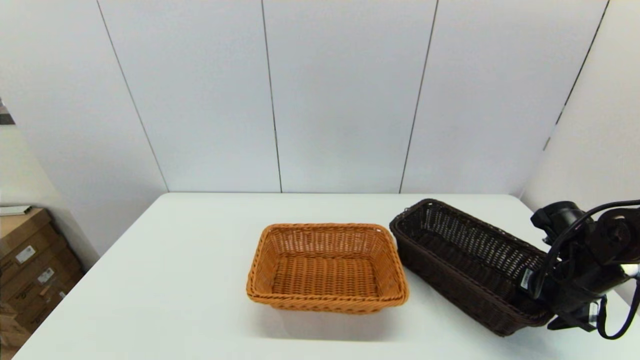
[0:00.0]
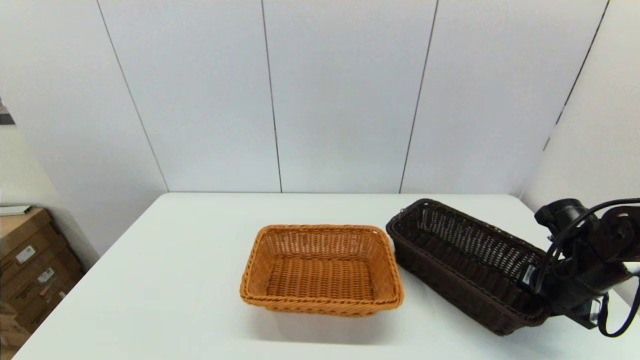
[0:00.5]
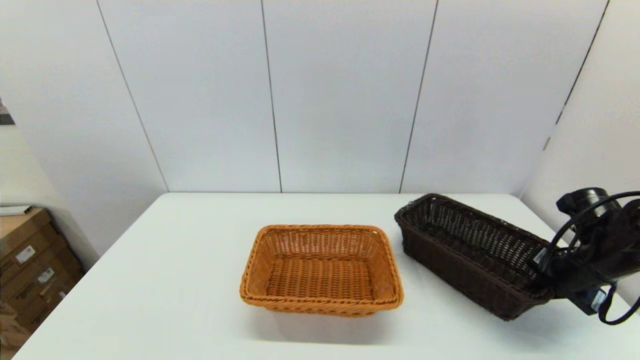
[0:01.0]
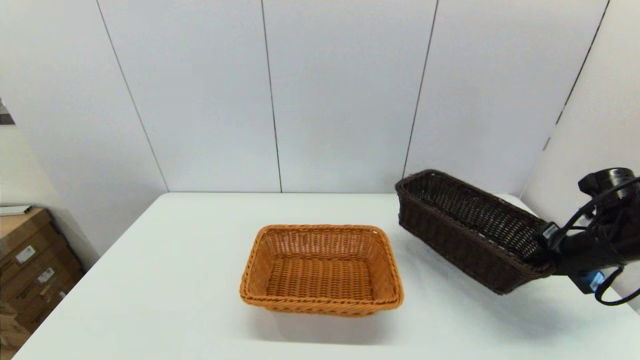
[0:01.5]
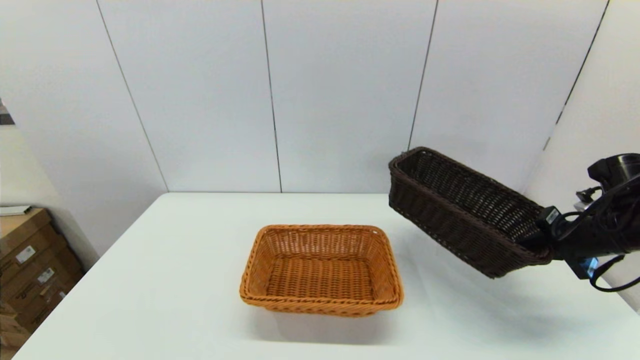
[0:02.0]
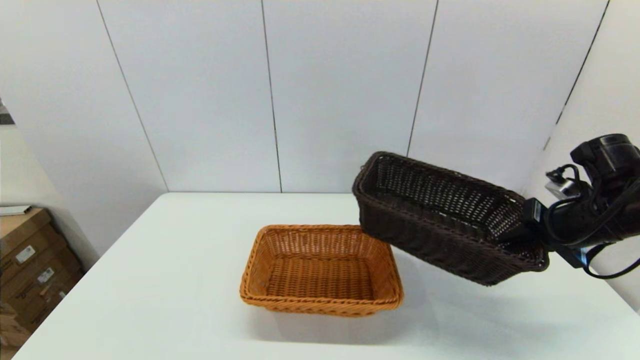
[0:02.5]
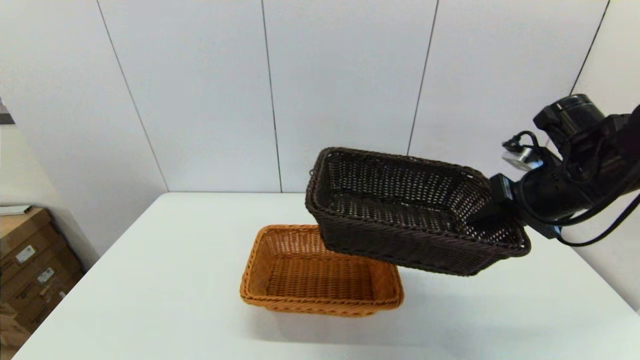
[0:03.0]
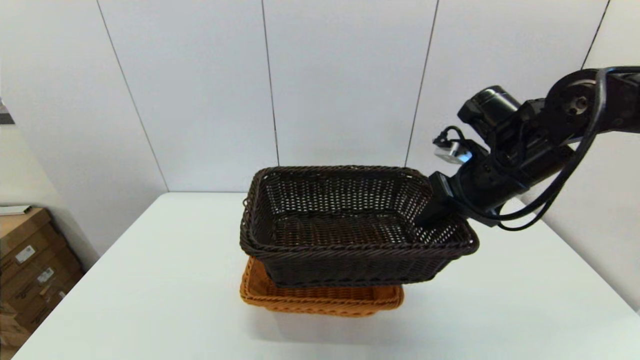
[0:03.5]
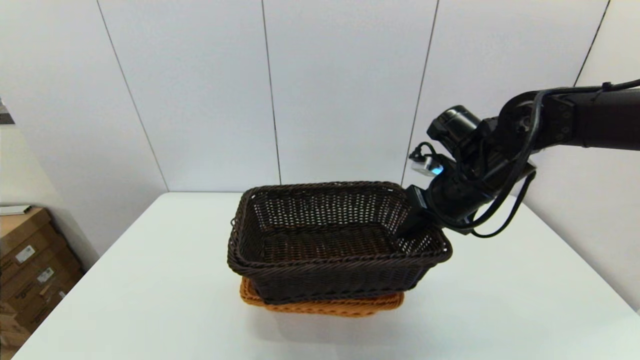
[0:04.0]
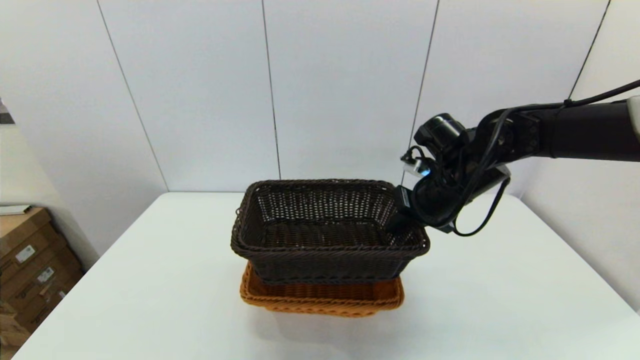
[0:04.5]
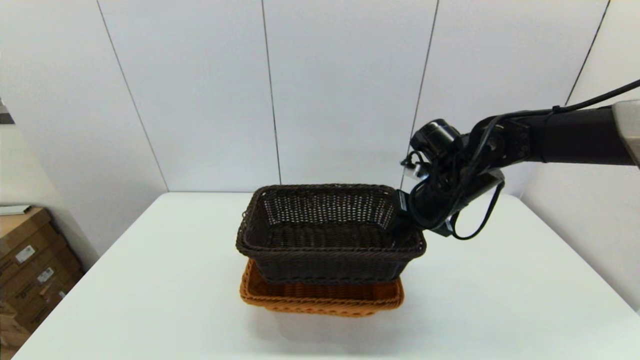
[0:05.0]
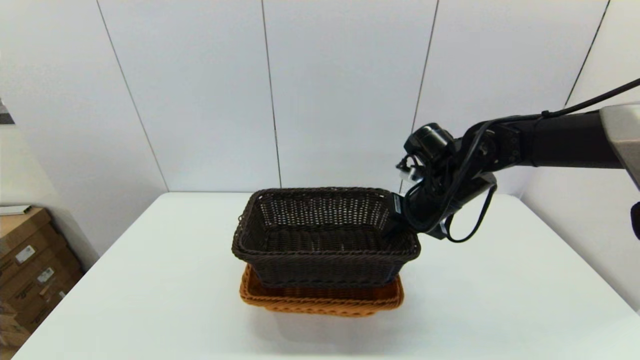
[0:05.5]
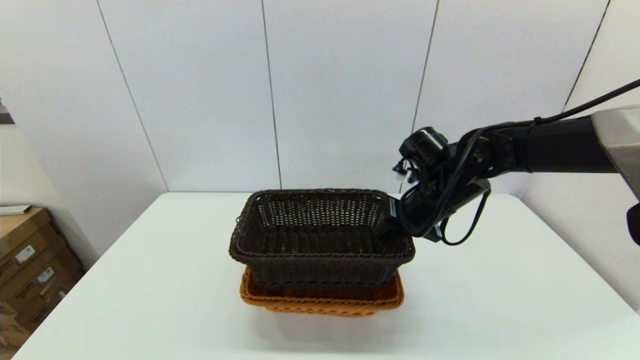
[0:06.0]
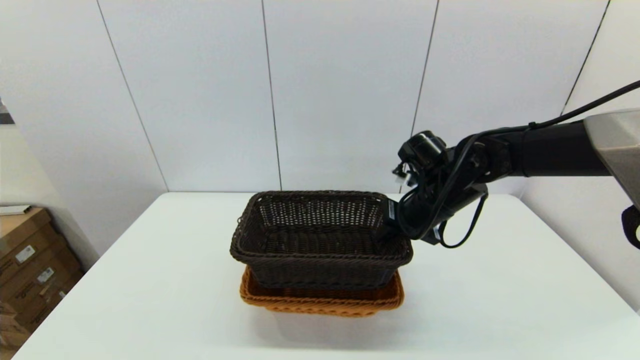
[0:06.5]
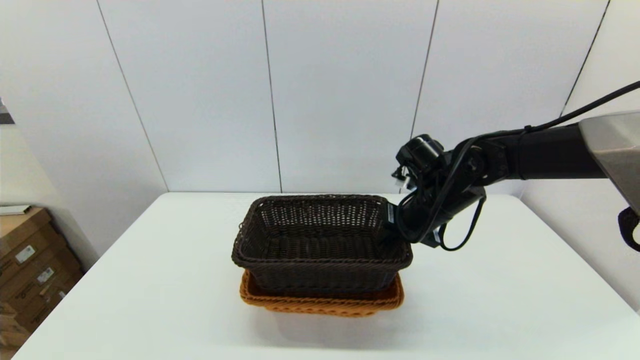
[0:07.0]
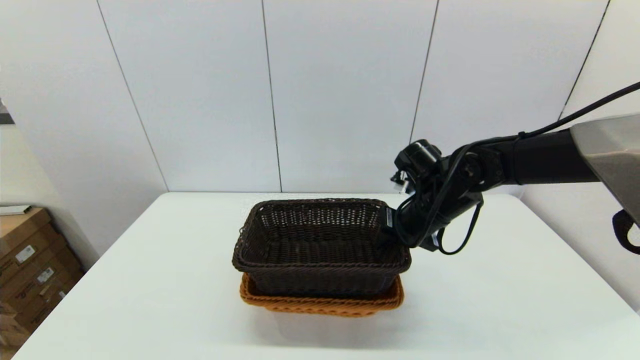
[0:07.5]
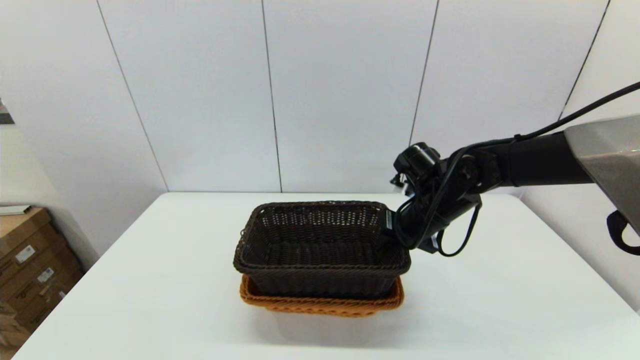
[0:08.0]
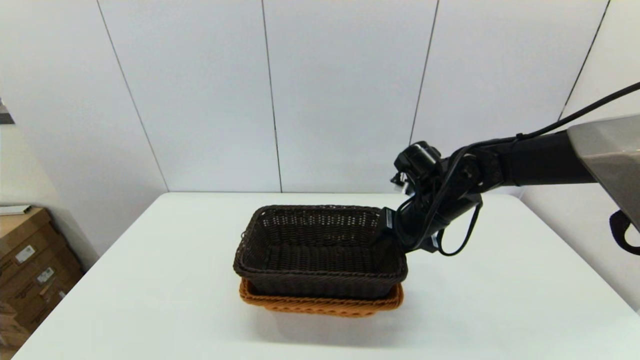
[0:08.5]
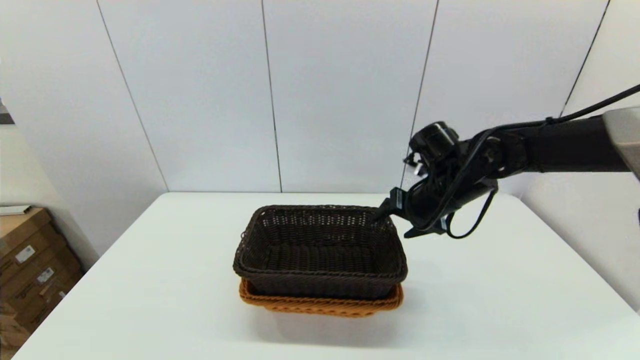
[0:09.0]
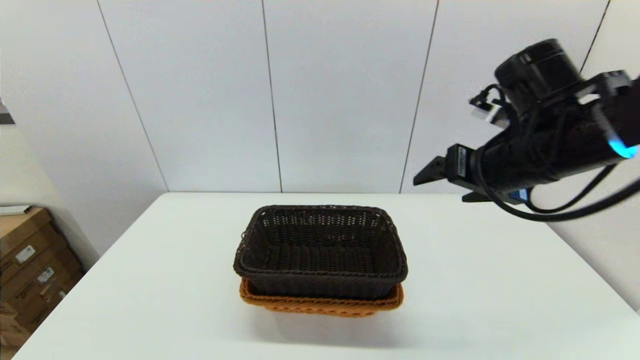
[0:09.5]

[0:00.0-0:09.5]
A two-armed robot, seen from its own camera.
Task of the whole recording: stack a basket on top of another basket.
0:00.0 to 0:02.0: The right gripper goes some 5 cm upward, and closes up.
0:02.0 to 0:04.0: The right gripper goes roughly 20 cm to the left.
0:04.0 to 0:05.5: The grippers stay close to where they were, moving slightly.
0:05.5 to 0:07.5: The grippers stay close to where they were, moving slightly.
0:07.5 to 0:09.5: The right gripper moves upward and backward, some 15 cm, and opens its fingers.

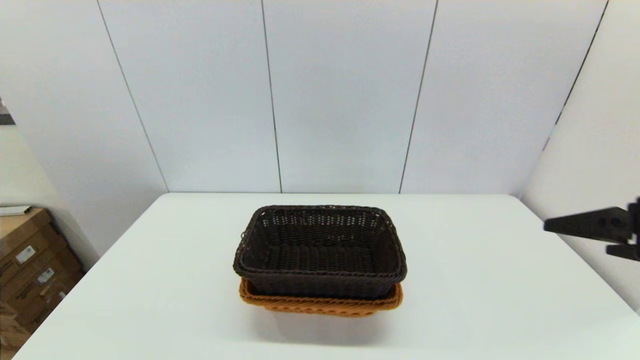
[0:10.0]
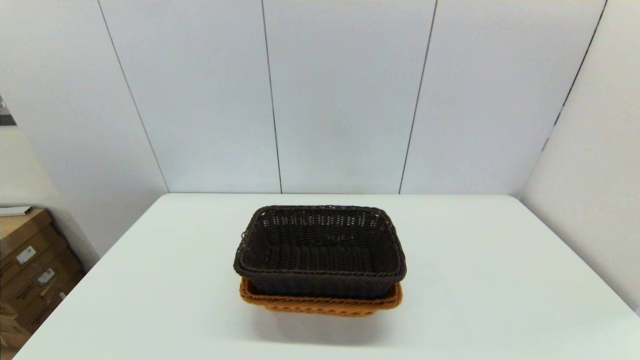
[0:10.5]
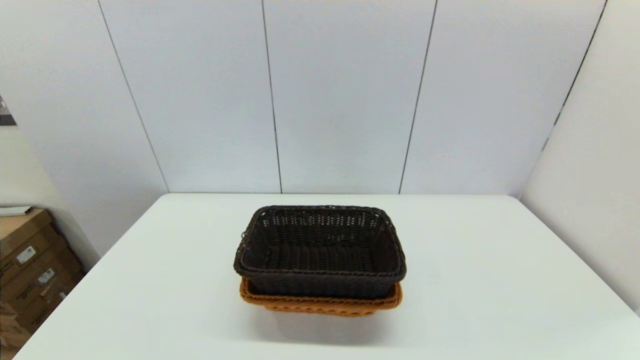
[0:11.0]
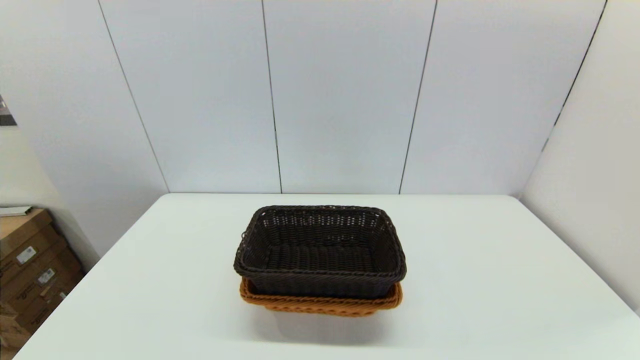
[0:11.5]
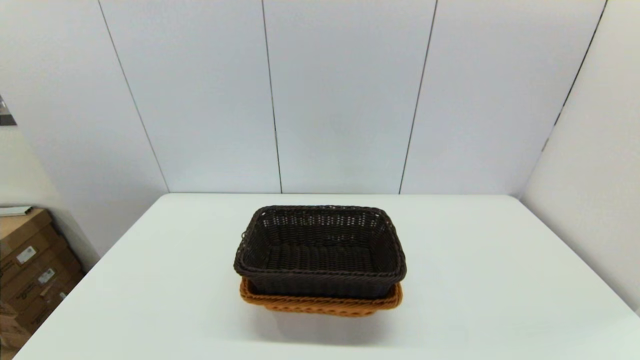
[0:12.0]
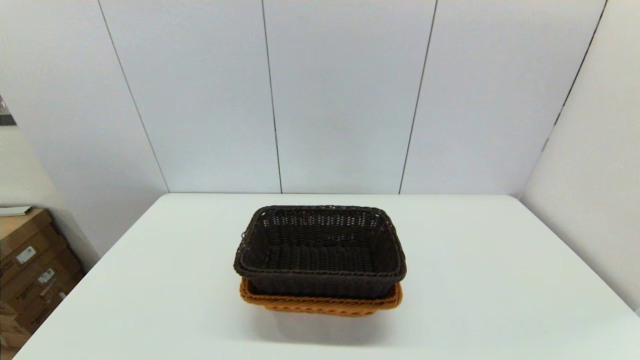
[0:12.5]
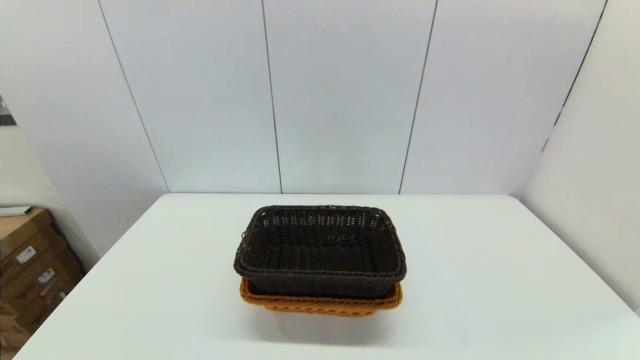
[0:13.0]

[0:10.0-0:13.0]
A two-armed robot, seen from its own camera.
Task of the whole recording: stack a basket on top of another basket.
0:10.0 to 0:11.5: The right gripper heads backward and downward, covering roughly 25 cm.

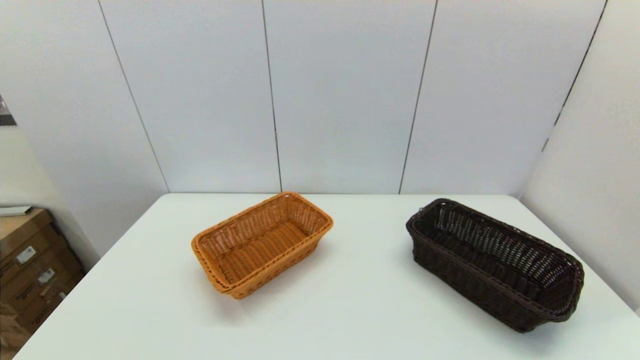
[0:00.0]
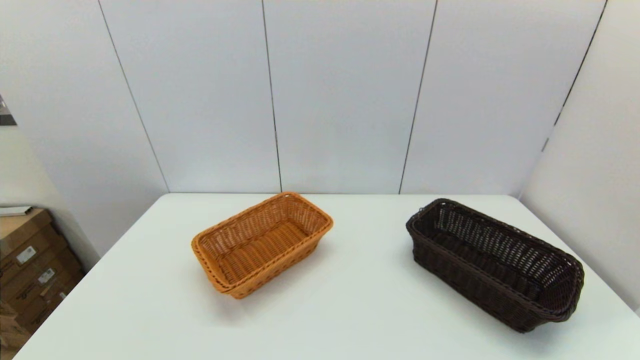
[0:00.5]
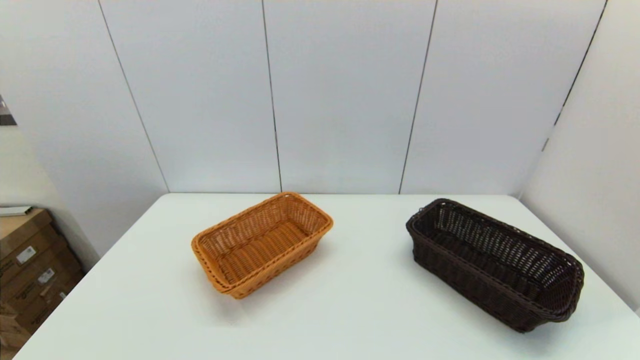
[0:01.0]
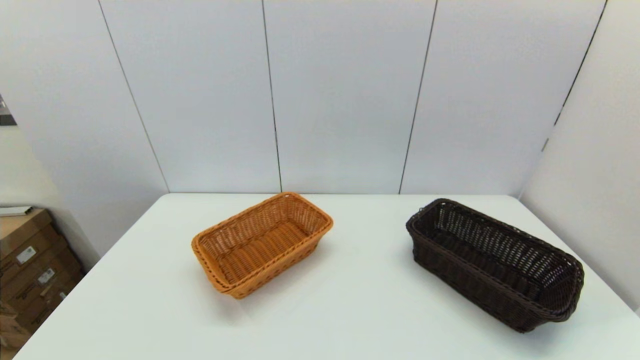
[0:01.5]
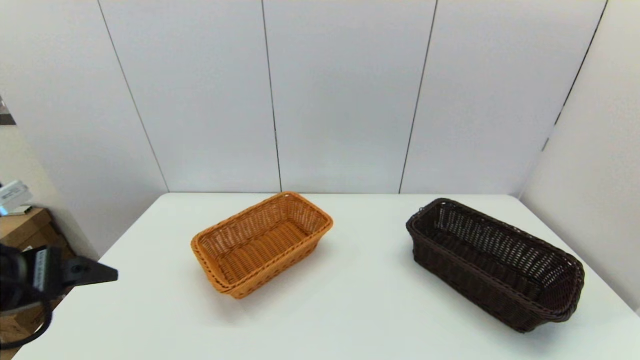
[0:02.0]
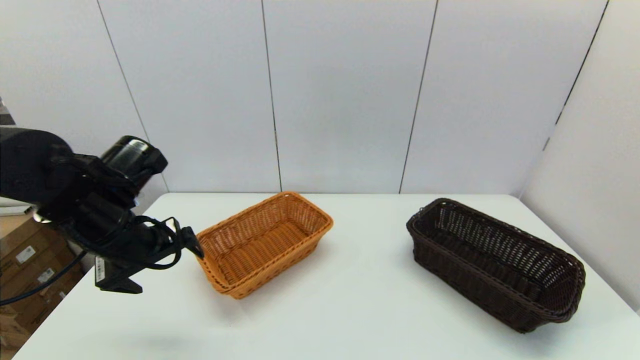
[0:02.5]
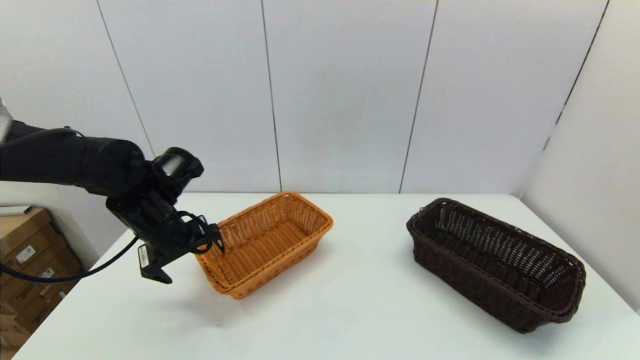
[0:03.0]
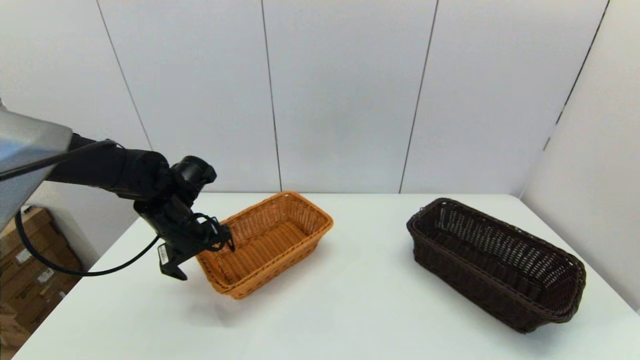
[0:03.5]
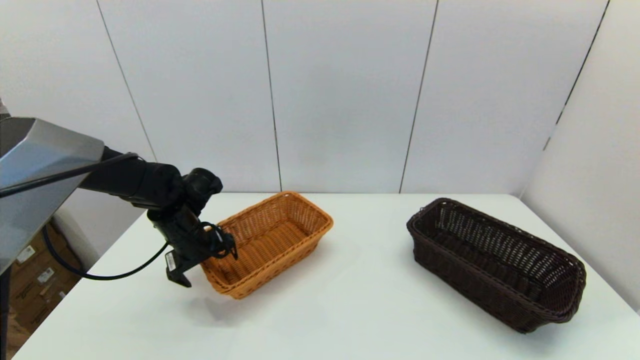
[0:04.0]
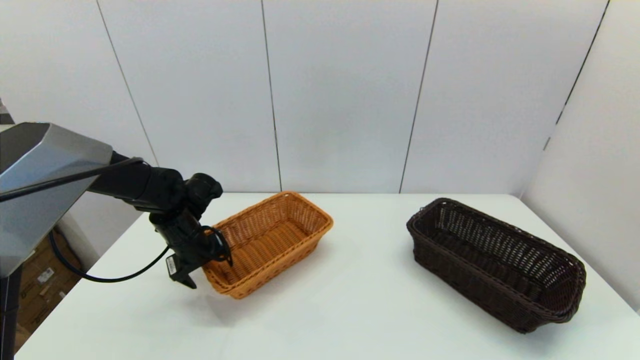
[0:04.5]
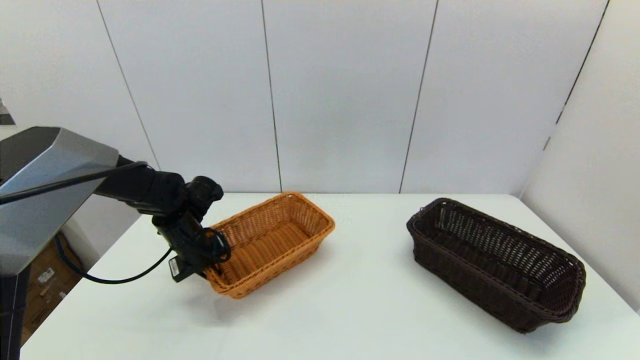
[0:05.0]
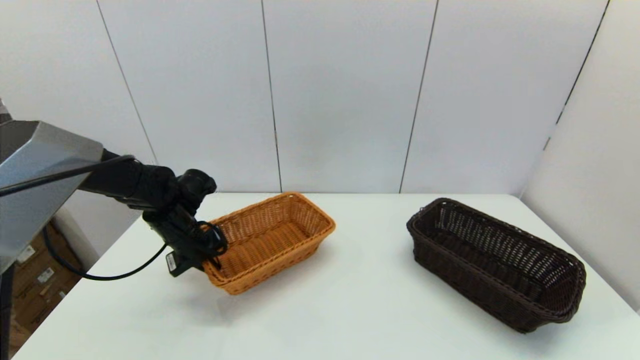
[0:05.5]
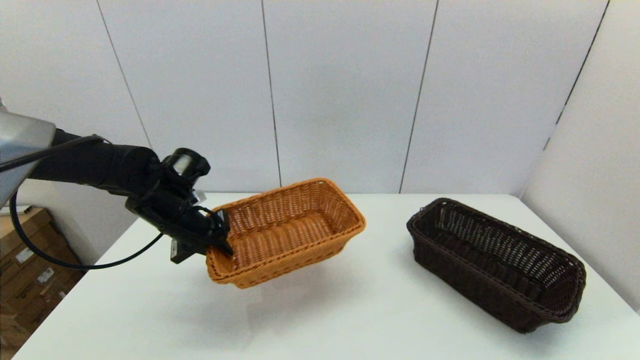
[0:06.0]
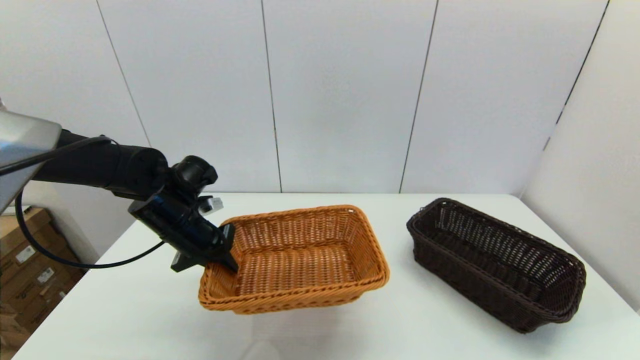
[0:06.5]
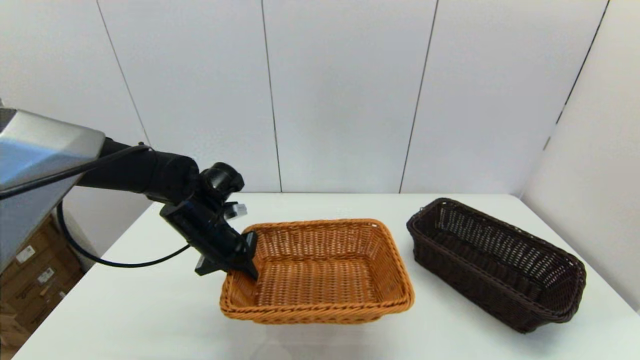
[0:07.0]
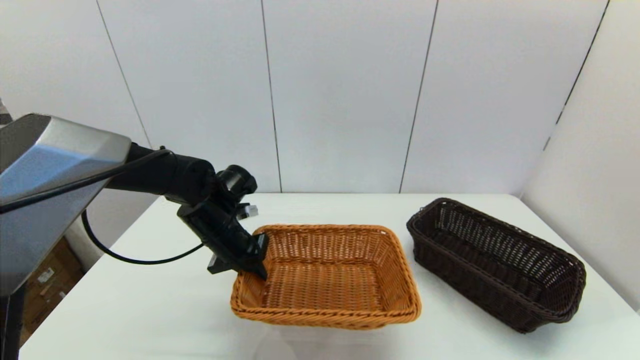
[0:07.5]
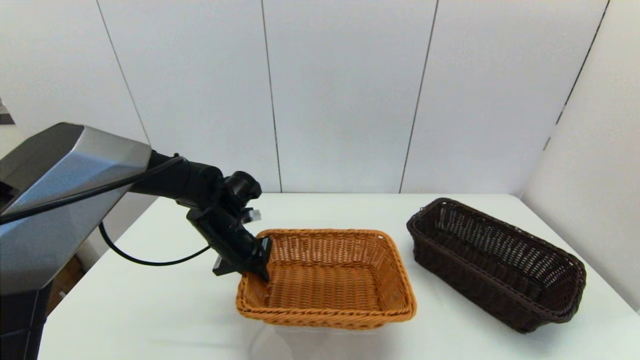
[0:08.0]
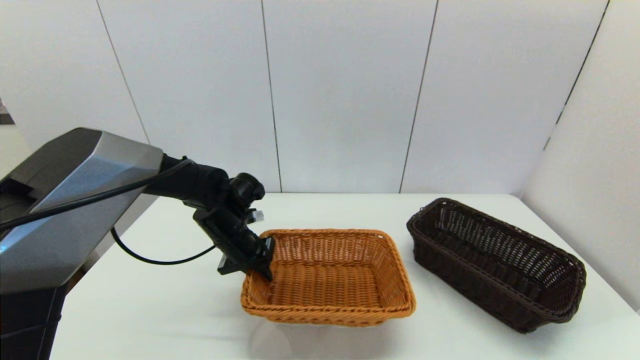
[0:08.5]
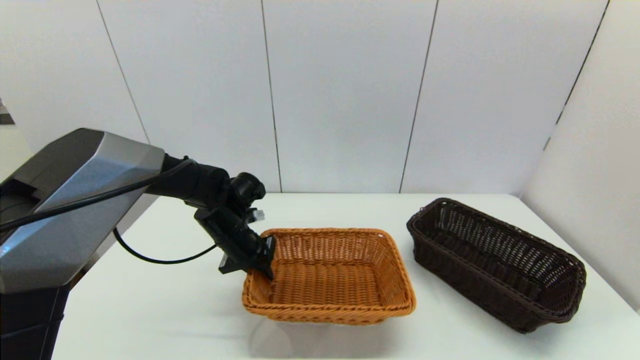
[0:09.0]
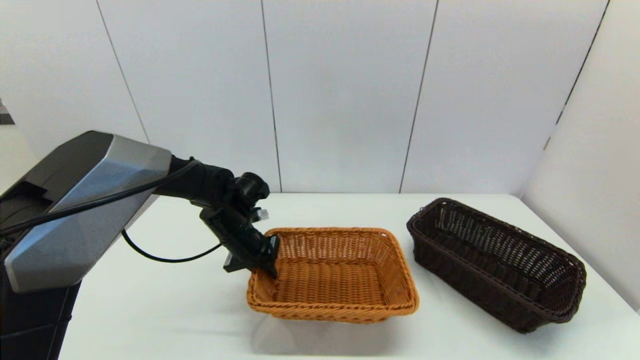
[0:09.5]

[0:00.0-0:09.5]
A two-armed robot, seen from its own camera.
Task of the whole recording: stack a basket on top of another basket.
Step, 0:02.0 to 0:05.0: Grasp the light basket with the left gripper.
0:00.0 to 0:02.0: The left gripper shifts approximately 20 cm forward and upward.
0:02.0 to 0:04.0: The left gripper heads forward and downward, covering about 25 cm.
0:04.0 to 0:05.5: The left gripper closes up.
0:05.5 to 0:07.5: The left gripper shifts roughly 10 cm to the right.
0:07.5 to 0:09.5: There are only small adjustments of the grippers.
